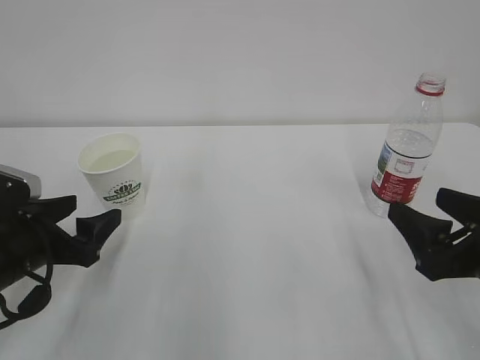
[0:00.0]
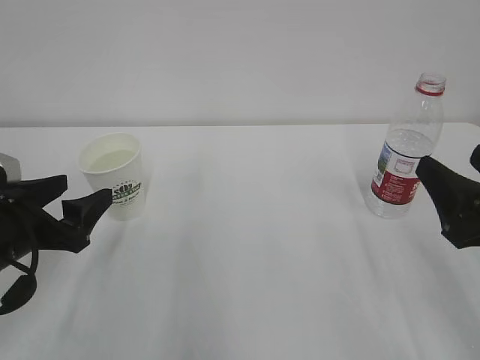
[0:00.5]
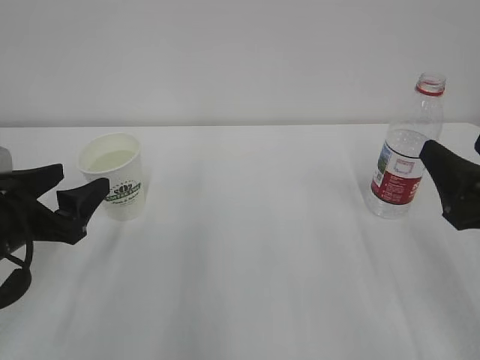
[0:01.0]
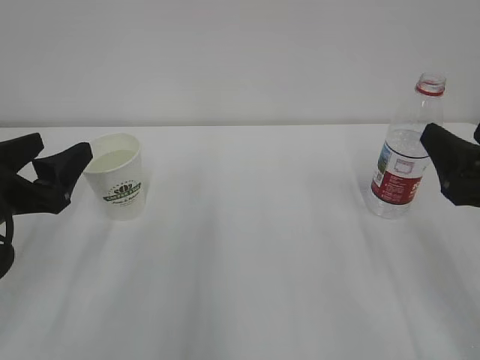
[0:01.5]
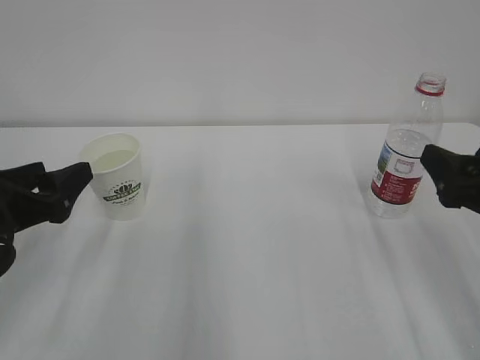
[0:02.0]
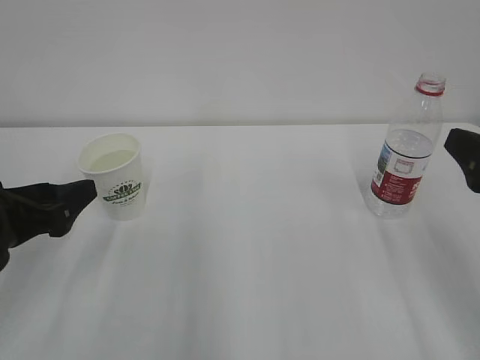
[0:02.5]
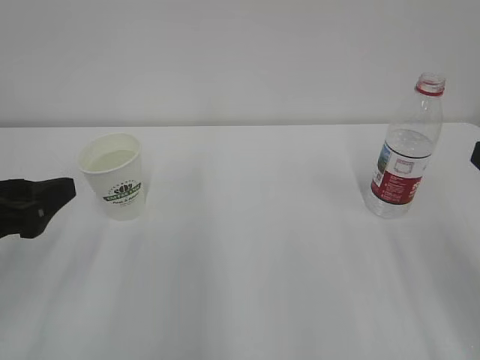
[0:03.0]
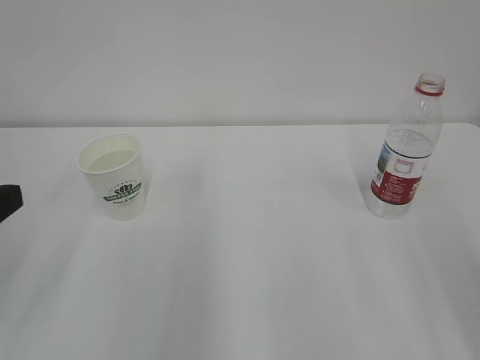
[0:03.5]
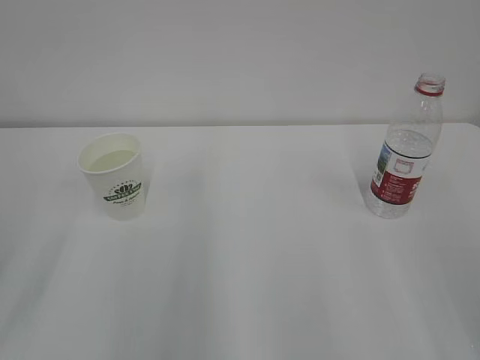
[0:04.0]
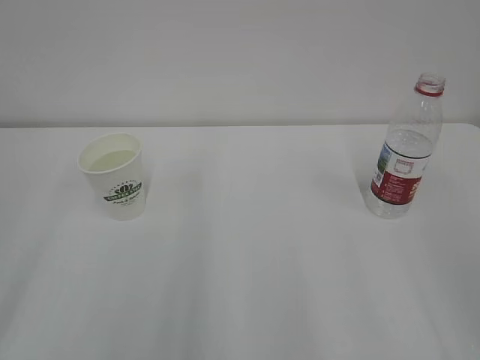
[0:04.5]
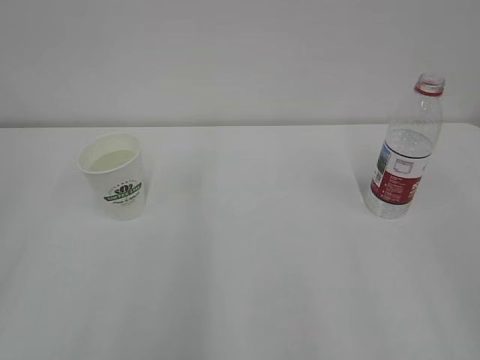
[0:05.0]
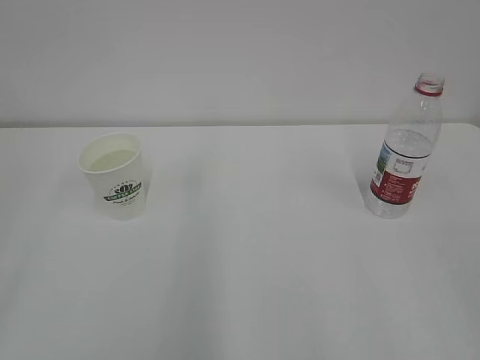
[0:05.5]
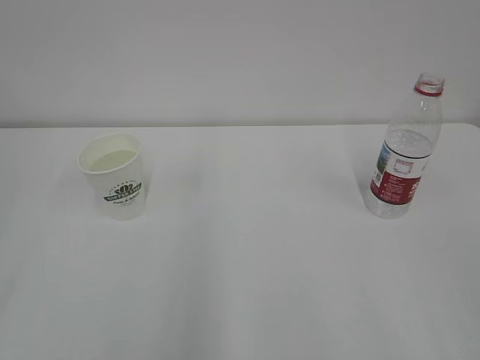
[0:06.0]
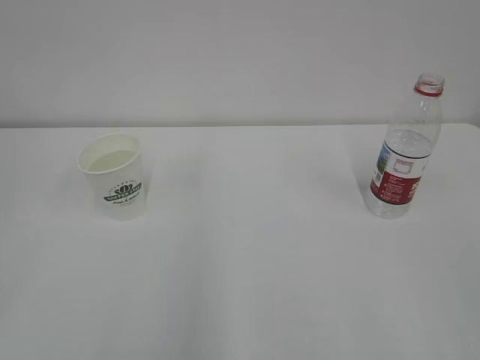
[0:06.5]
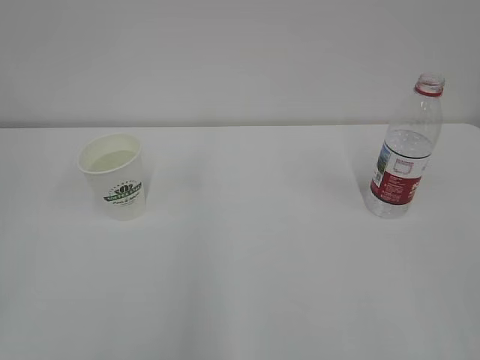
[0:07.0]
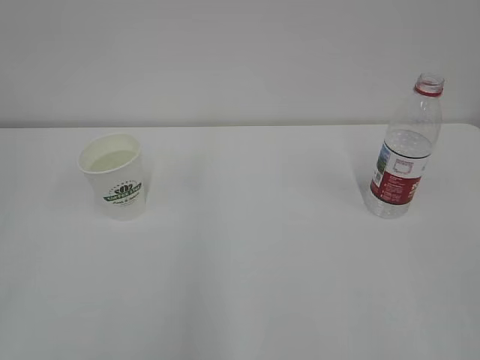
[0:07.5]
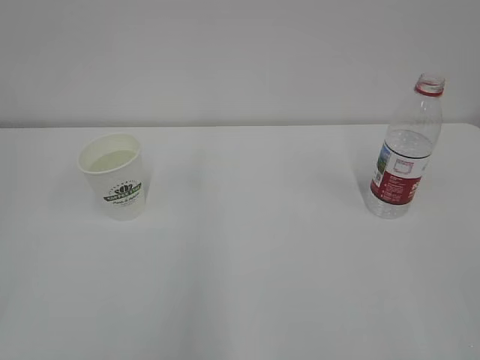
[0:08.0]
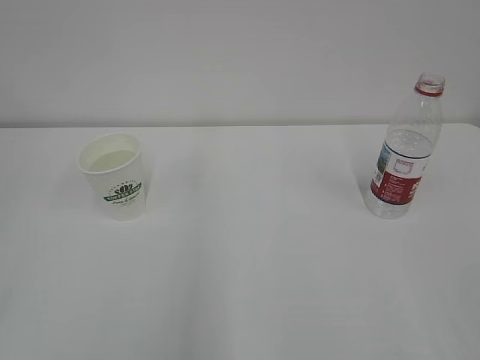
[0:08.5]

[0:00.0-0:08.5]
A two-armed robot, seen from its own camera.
0:00.0 to 0:02.0: The right gripper changes place by about 5 cm. The left gripper is displaced upward by some 5 cm.
0:02.0 to 0:04.0: Both grippers travel together backward and upward, some 15 cm.
